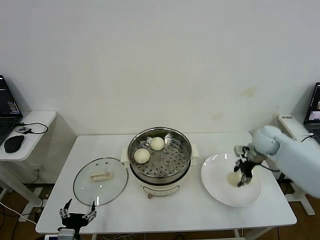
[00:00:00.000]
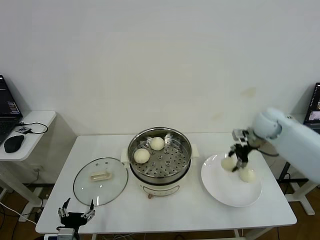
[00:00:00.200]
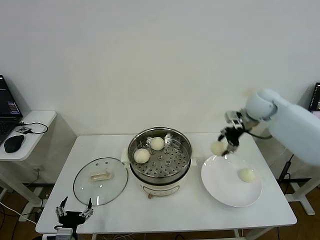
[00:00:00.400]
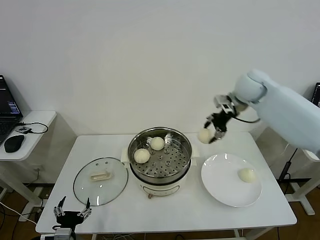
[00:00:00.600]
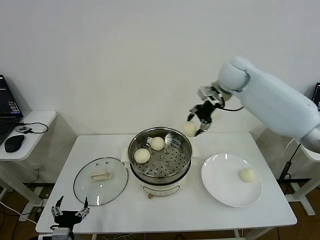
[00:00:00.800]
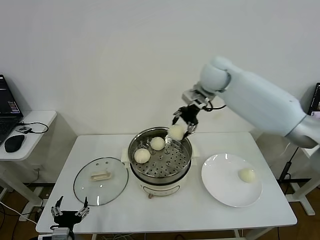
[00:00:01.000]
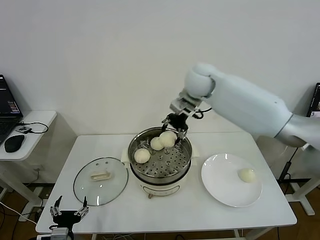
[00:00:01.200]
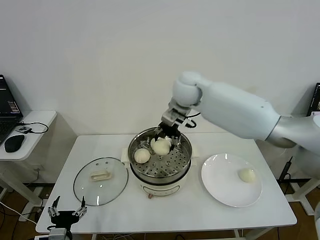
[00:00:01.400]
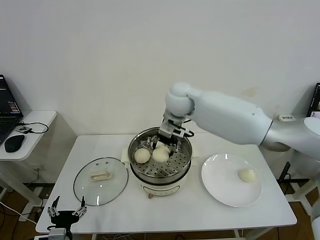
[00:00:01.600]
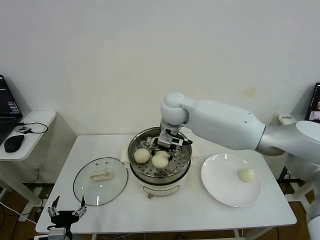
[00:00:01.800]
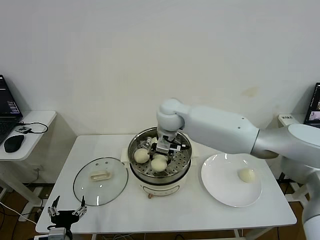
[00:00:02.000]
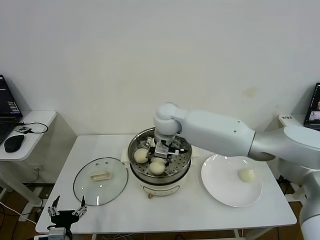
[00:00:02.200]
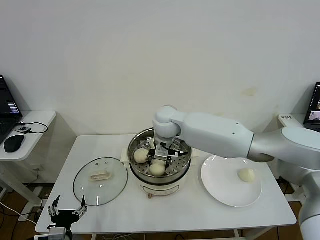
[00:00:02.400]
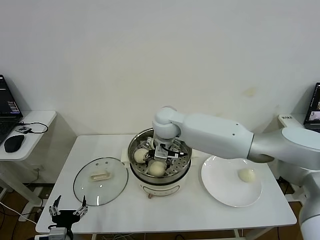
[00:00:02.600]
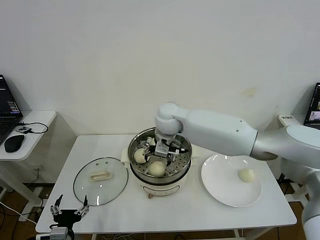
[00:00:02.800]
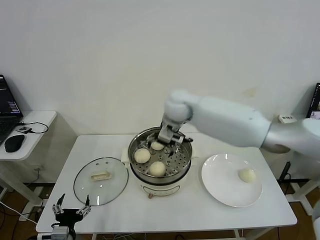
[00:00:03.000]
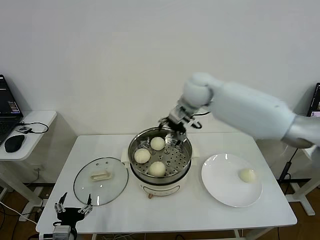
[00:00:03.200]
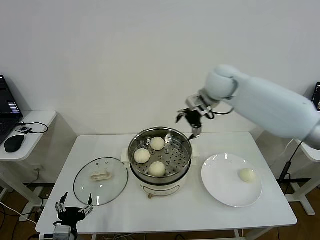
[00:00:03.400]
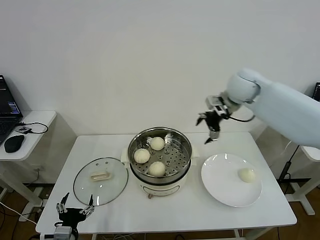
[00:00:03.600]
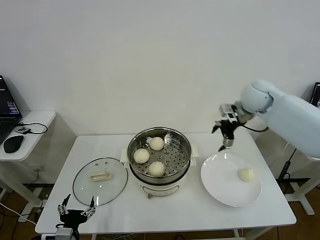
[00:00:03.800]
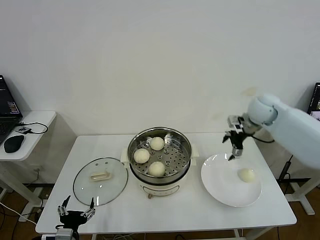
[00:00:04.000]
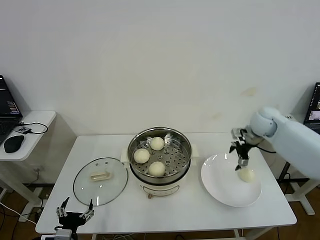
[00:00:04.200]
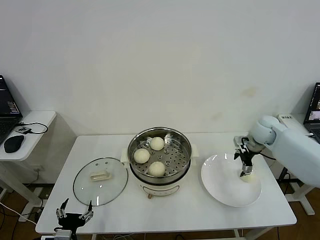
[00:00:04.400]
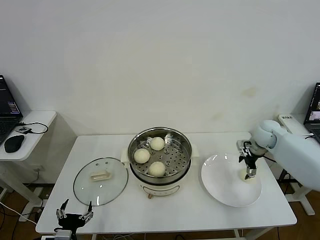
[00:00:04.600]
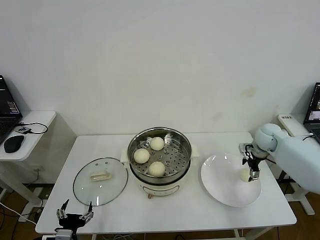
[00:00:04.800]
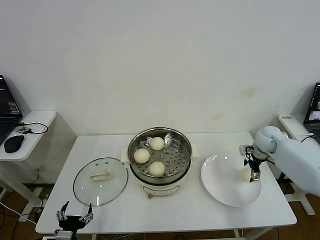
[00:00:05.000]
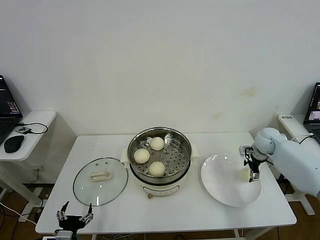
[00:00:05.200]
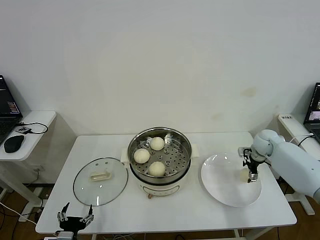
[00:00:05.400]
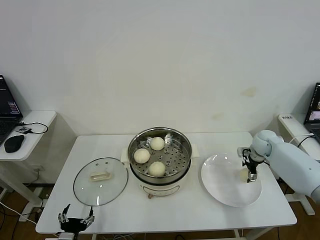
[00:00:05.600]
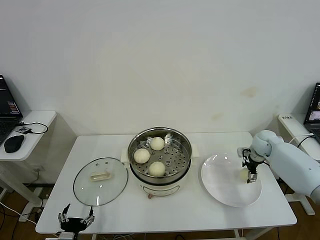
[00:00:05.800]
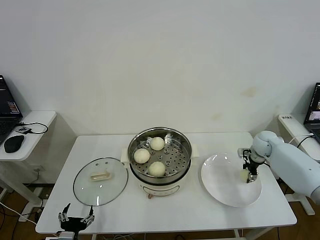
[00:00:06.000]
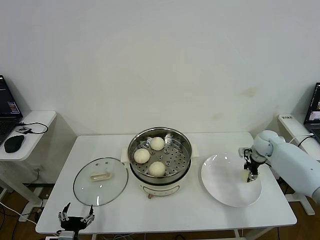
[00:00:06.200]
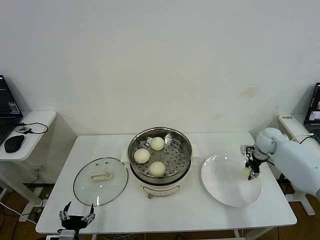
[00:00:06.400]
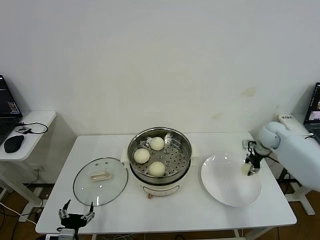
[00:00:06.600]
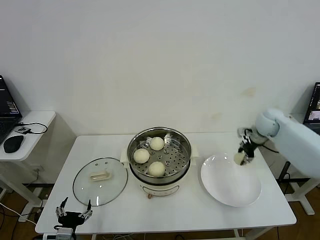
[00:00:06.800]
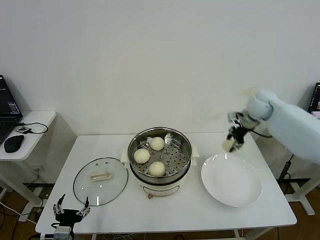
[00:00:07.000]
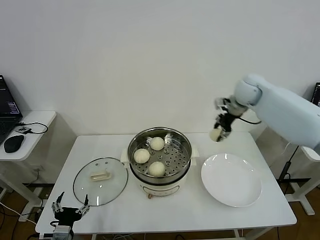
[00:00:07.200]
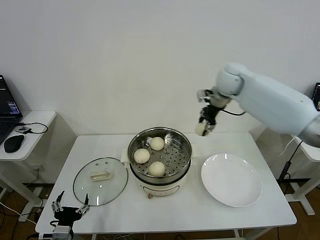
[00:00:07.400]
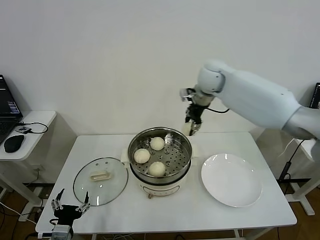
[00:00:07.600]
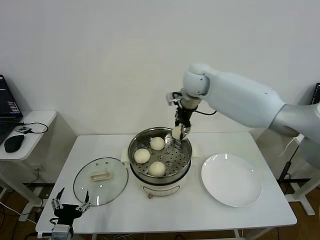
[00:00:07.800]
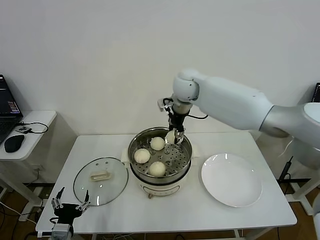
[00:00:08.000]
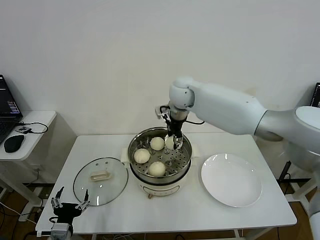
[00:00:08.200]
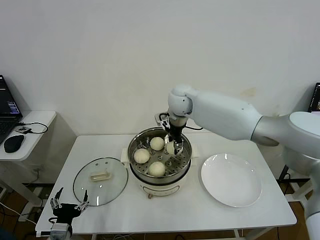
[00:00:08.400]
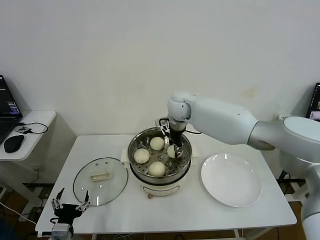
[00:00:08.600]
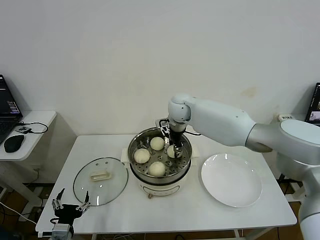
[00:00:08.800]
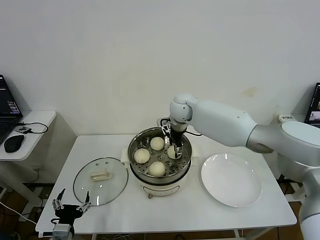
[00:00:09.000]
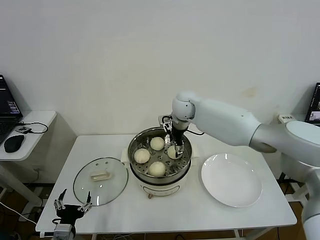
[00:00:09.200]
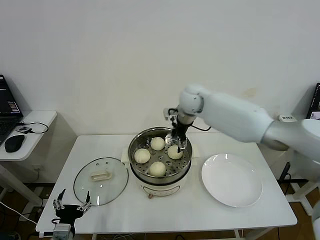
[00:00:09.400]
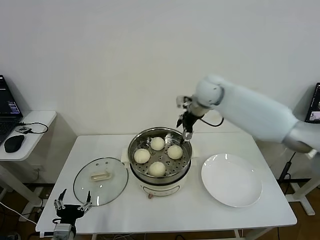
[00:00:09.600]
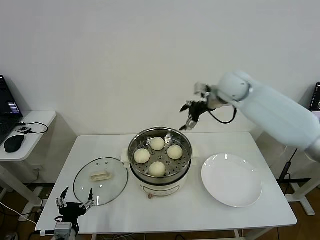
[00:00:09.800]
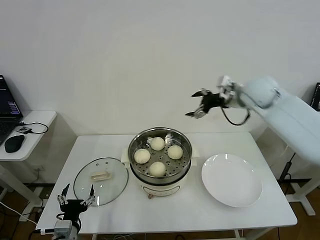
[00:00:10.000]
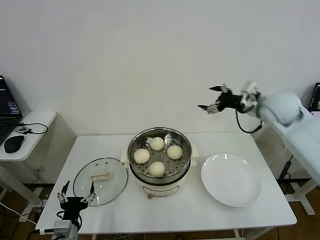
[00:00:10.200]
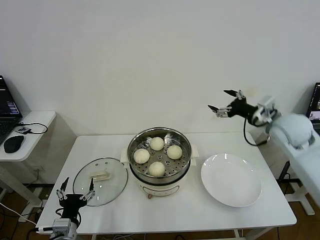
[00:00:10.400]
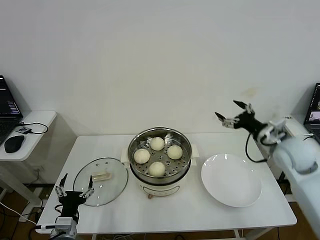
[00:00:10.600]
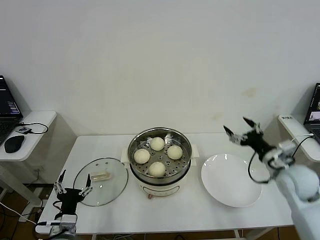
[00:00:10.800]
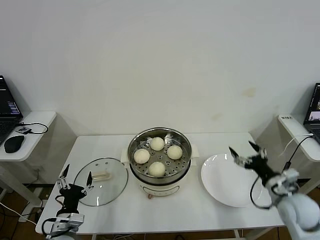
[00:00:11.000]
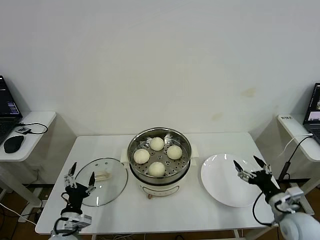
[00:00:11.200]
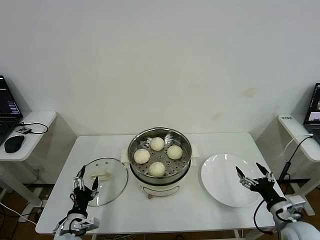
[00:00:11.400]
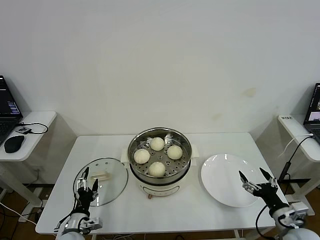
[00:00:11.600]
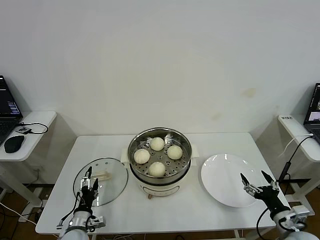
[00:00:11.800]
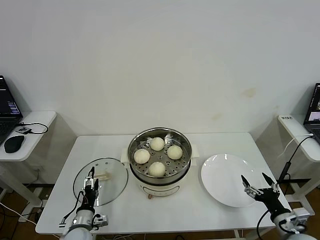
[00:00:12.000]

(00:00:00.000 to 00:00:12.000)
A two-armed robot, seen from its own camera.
Step, 00:00:00.000 - 00:00:02.600: Place the baozi on the steamer with right gripper.
Step, 00:00:03.000 - 00:00:06.000: Grasp the baozi in the plate with right gripper.
Step, 00:00:06.400 - 00:00:09.200: Place the baozi on the steamer with right gripper.
00:00:00.000 - 00:00:01.600: The right gripper moves to the left, roughly 30 cm.
00:00:01.600 - 00:00:03.000: The right gripper opens.
00:00:03.000 - 00:00:04.400: The right gripper moves to the right and downward, some 35 cm.
00:00:04.400 - 00:00:06.000: The right gripper shifts about 10 cm downward, and closes its fingers.
00:00:06.000 - 00:00:07.600: The right gripper travels to the left and upward by approximately 35 cm, and closes its fingers.
00:00:07.600 - 00:00:09.000: The right gripper moves downward and to the left, some 15 cm, and opens.
00:00:09.000 - 00:00:10.400: The right gripper goes roughly 35 cm to the right and backward, and opens.
00:00:10.400 - 00:00:12.000: The right gripper shifts roughly 35 cm backward and downward, while the left gripper travels downward and forward by approximately 10 cm.

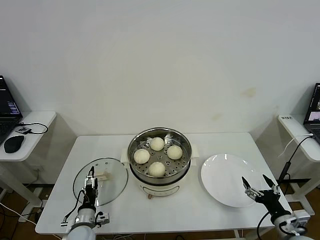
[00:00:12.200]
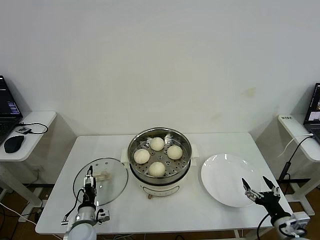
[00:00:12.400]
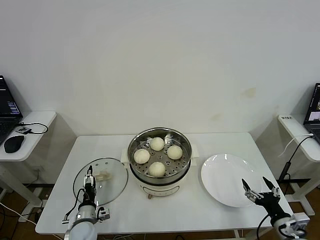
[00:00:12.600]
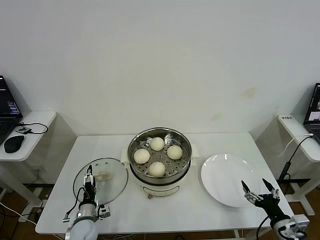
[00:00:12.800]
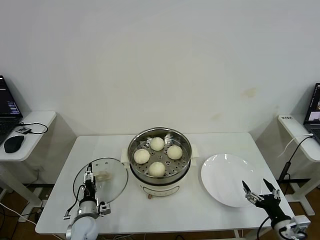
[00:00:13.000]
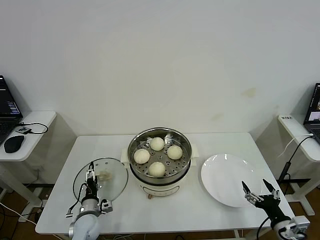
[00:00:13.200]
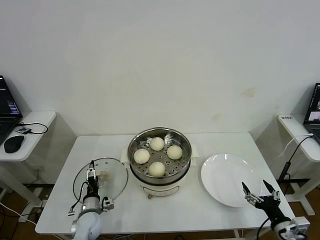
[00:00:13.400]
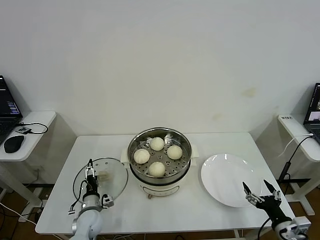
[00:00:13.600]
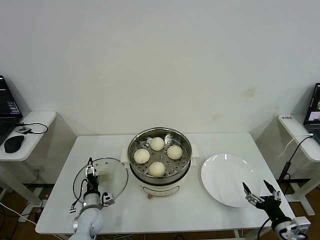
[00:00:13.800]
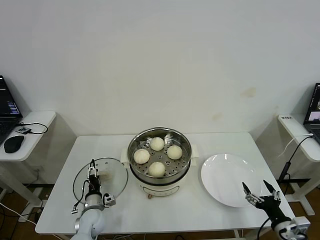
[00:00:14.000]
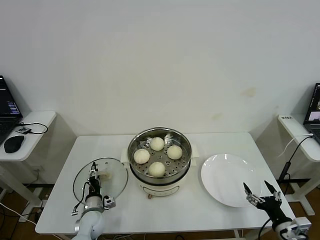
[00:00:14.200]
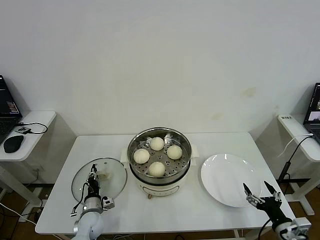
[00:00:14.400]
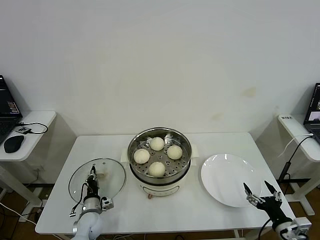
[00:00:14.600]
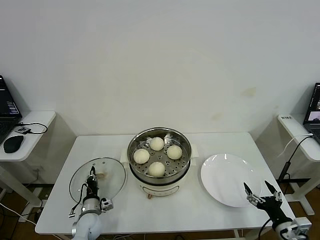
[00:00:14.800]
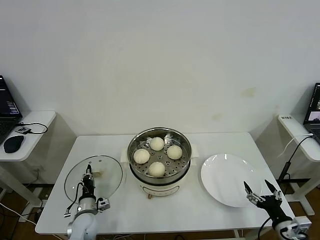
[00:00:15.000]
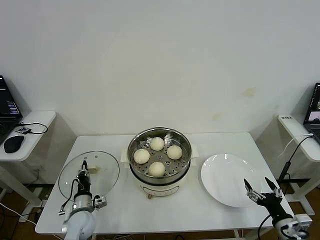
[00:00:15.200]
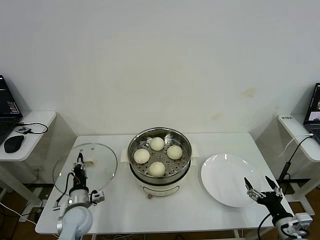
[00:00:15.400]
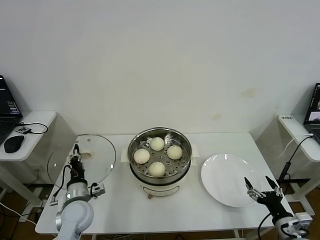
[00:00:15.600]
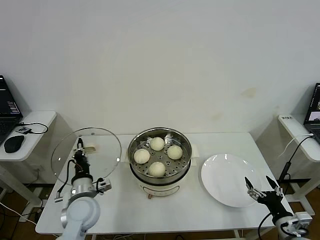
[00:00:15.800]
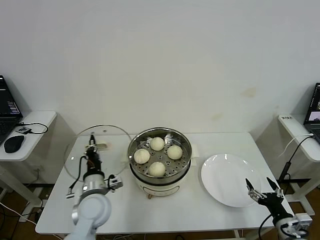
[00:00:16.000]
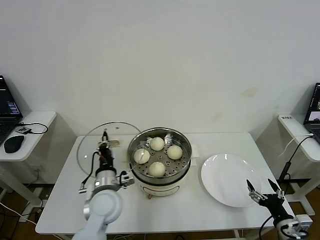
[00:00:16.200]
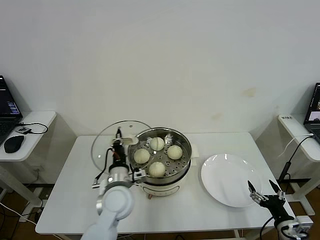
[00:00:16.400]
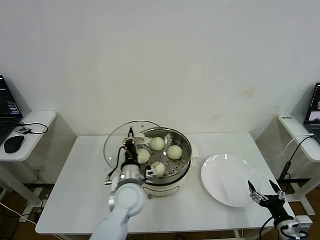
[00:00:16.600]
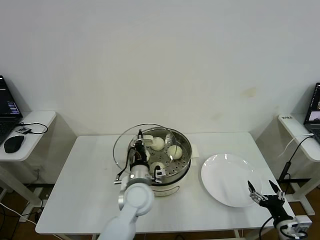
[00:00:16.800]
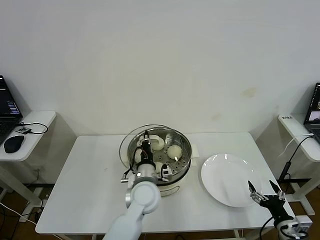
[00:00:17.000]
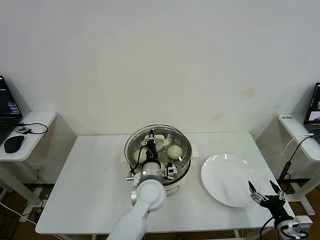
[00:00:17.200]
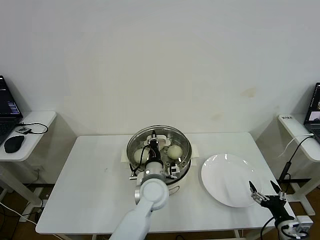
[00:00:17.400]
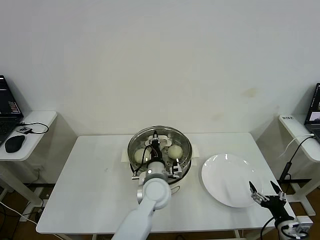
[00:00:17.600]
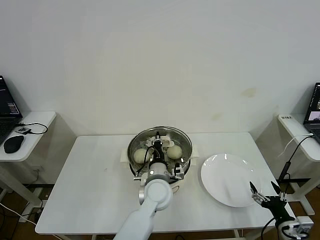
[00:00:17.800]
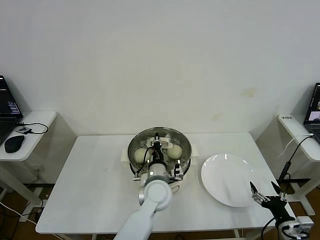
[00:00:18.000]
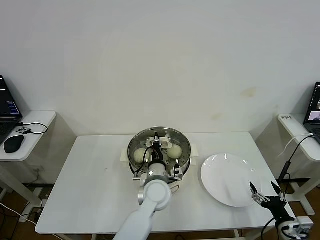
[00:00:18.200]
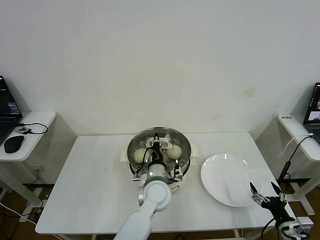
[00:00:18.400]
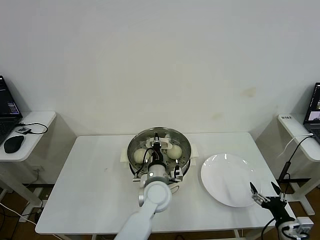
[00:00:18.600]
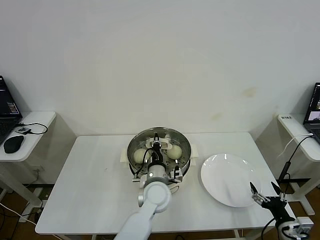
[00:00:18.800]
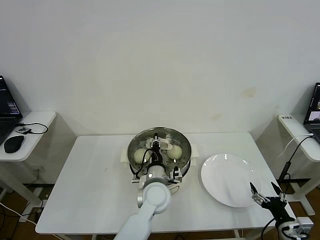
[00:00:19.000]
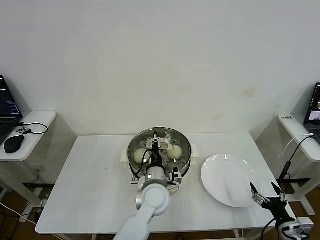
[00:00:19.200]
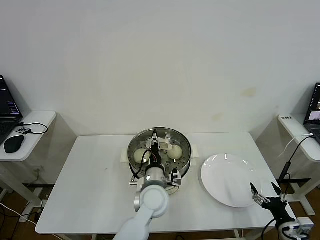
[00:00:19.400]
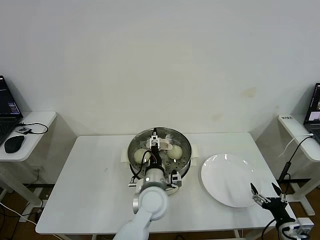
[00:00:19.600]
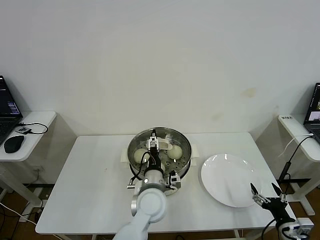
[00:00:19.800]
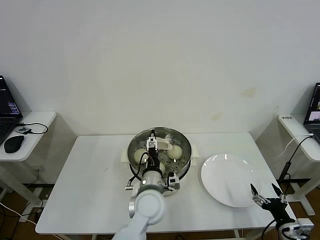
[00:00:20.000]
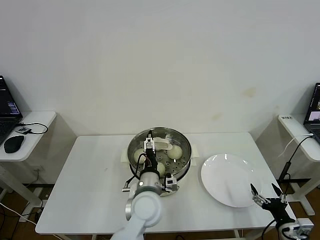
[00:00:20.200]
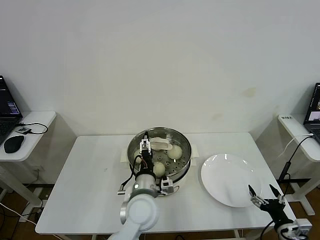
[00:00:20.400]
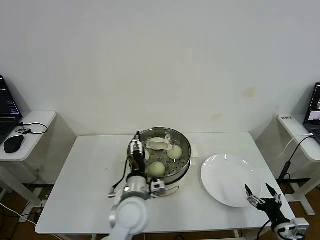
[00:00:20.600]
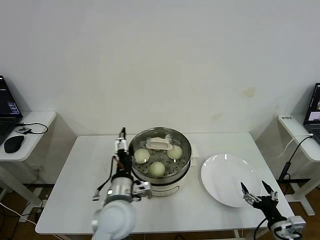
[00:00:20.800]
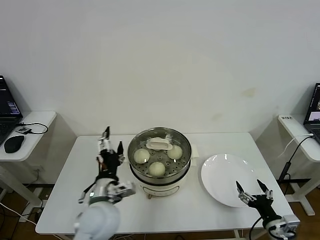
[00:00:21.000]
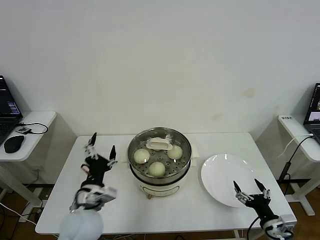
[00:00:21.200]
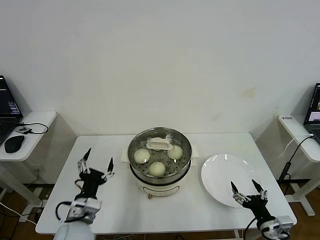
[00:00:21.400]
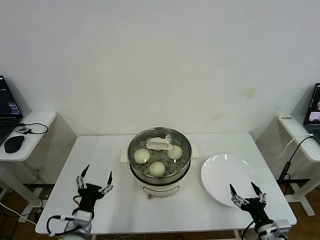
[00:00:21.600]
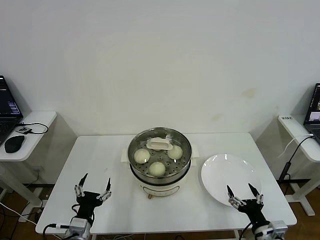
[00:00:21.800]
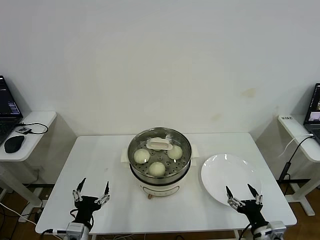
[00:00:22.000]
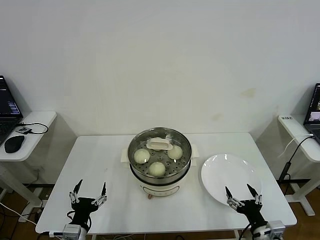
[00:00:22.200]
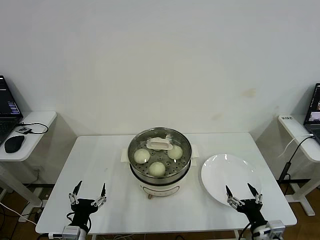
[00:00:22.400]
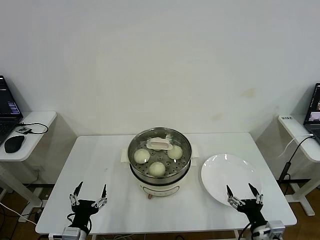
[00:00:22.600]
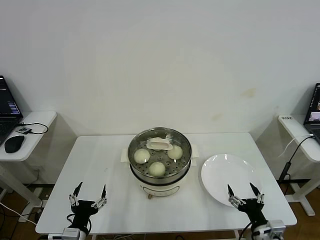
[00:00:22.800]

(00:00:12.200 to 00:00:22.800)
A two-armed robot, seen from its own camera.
Step, 00:00:12.200 - 00:00:14.800: Grasp the pot lid with left gripper.
Step, 00:00:15.000 - 00:00:19.200: Place the pot lid on the steamer with left gripper.
00:00:12.200 - 00:00:13.800: The left gripper is displaced forward by about 5 cm.
00:00:13.800 - 00:00:15.200: The left gripper closes.
00:00:15.200 - 00:00:16.800: The left gripper heads to the right and upward, covering some 25 cm.
00:00:16.800 - 00:00:18.200: The left gripper heads to the right, covering approximately 5 cm.
00:00:18.200 - 00:00:19.800: The left gripper opens up.
00:00:19.800 - 00:00:21.200: The right gripper is displaced to the left by about 5 cm; the left gripper goes some 15 cm to the left.
00:00:21.200 - 00:00:22.800: The left gripper shifts approximately 15 cm downward, backward and to the left.
